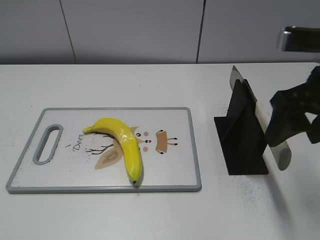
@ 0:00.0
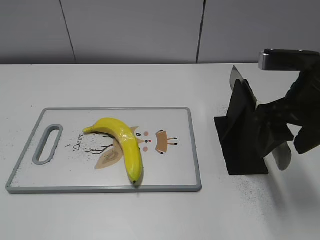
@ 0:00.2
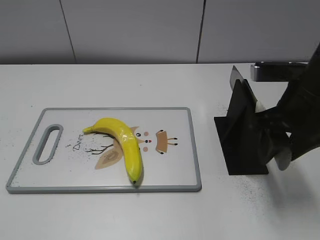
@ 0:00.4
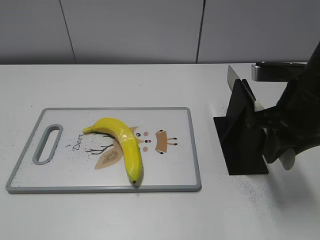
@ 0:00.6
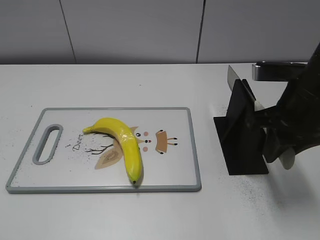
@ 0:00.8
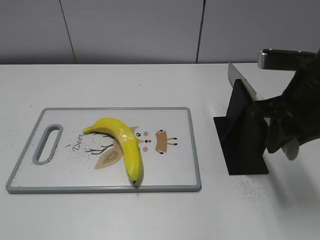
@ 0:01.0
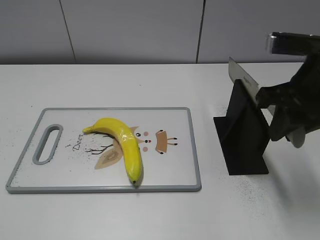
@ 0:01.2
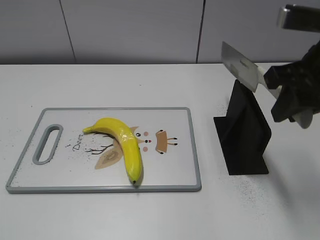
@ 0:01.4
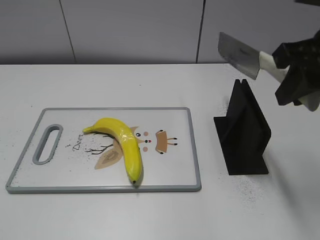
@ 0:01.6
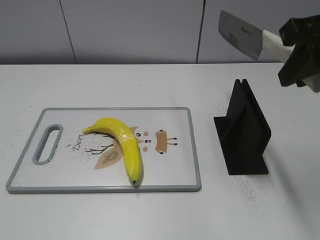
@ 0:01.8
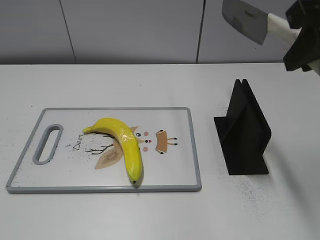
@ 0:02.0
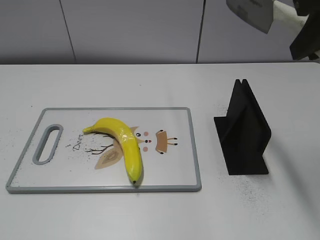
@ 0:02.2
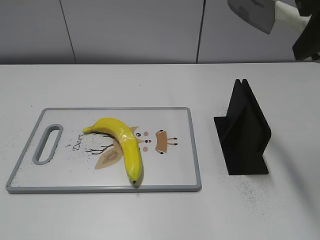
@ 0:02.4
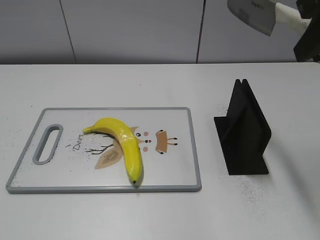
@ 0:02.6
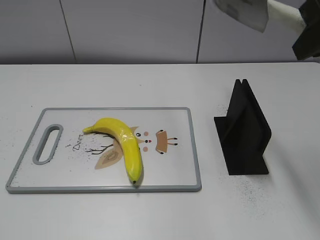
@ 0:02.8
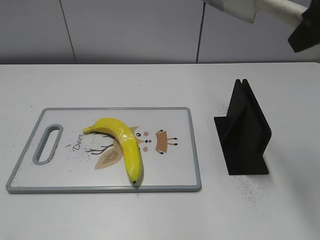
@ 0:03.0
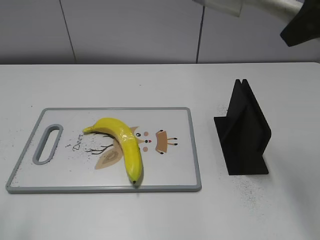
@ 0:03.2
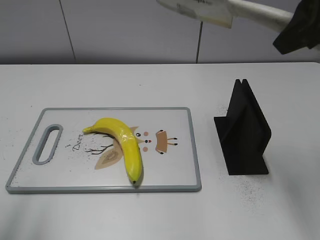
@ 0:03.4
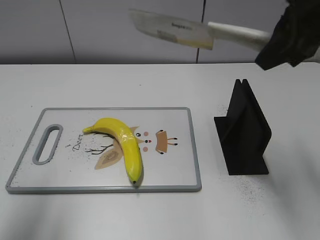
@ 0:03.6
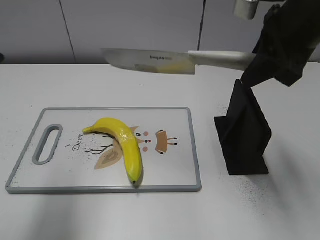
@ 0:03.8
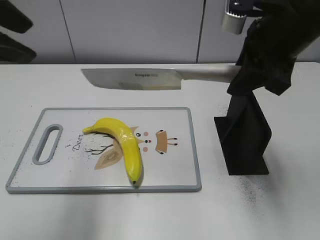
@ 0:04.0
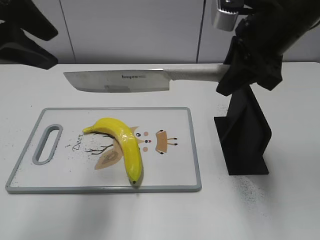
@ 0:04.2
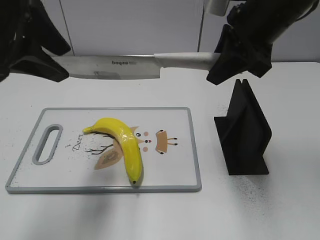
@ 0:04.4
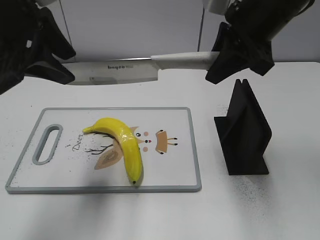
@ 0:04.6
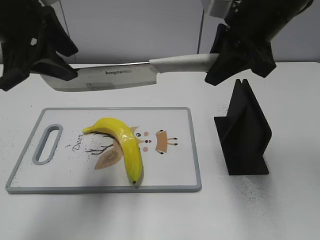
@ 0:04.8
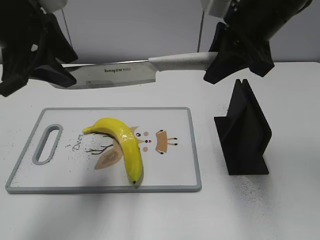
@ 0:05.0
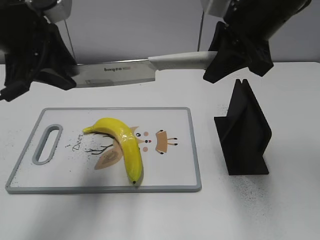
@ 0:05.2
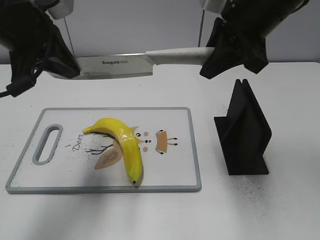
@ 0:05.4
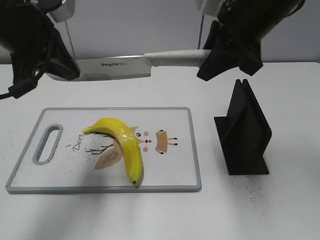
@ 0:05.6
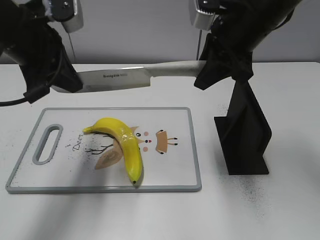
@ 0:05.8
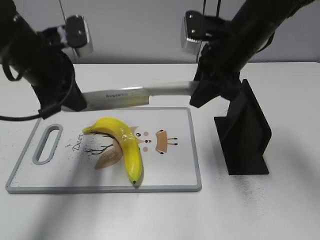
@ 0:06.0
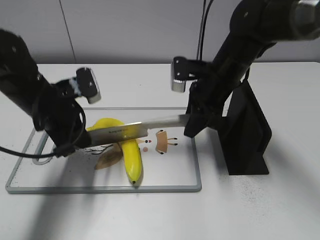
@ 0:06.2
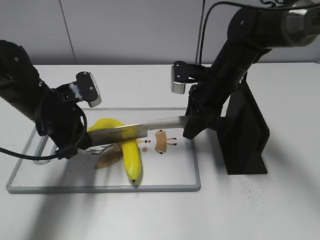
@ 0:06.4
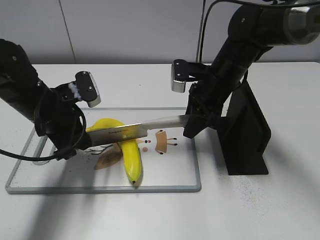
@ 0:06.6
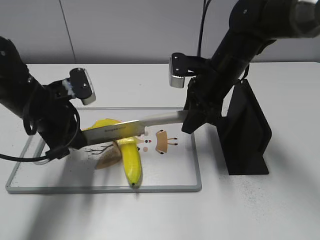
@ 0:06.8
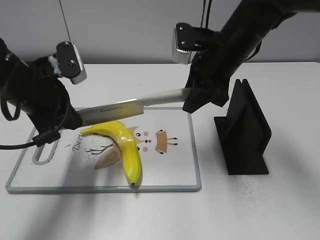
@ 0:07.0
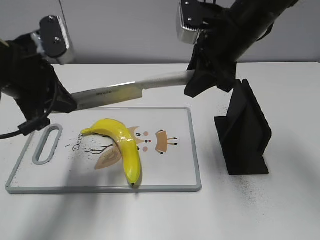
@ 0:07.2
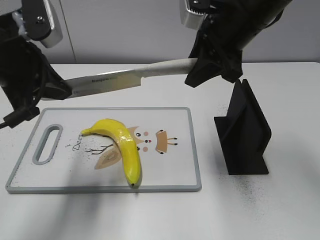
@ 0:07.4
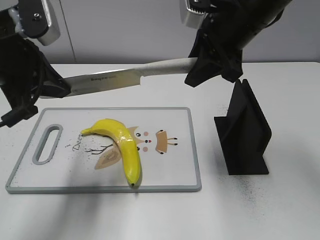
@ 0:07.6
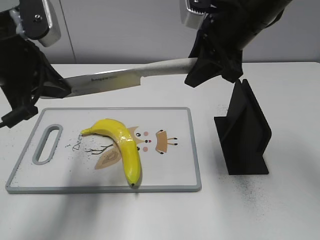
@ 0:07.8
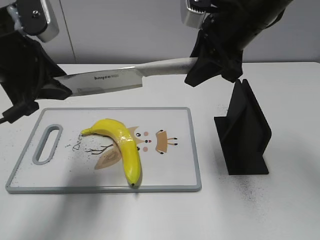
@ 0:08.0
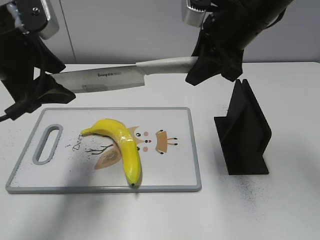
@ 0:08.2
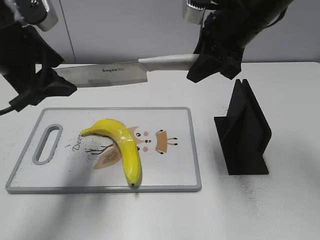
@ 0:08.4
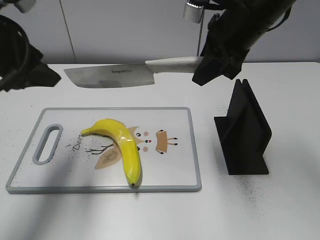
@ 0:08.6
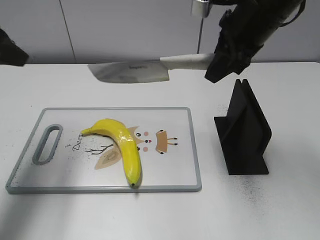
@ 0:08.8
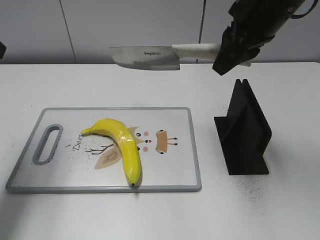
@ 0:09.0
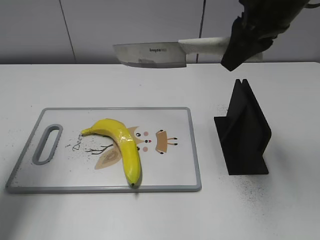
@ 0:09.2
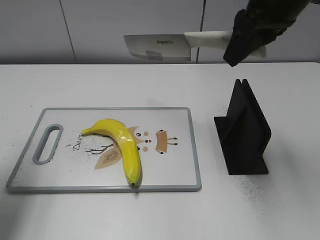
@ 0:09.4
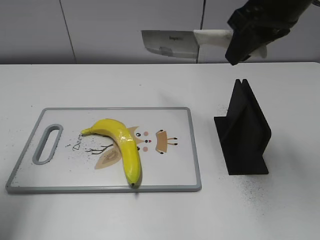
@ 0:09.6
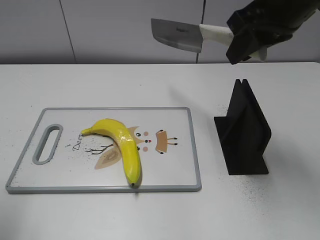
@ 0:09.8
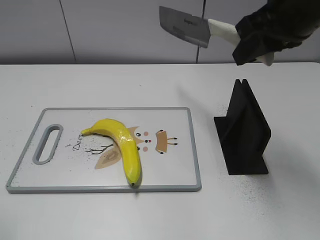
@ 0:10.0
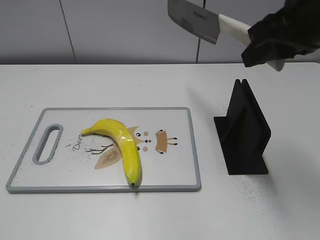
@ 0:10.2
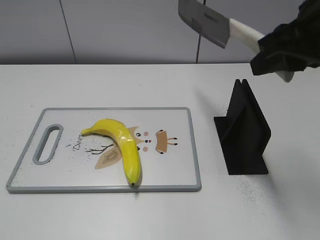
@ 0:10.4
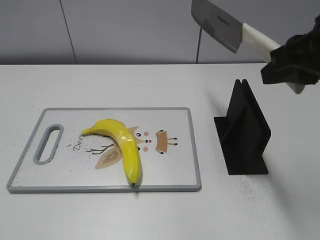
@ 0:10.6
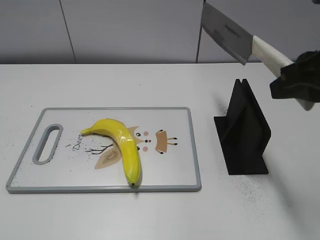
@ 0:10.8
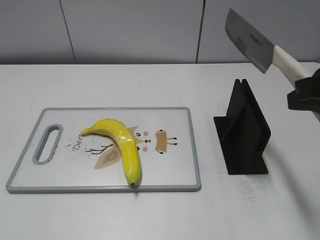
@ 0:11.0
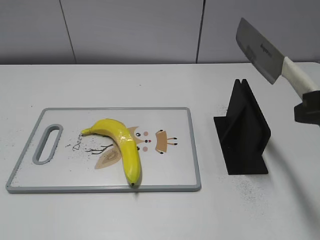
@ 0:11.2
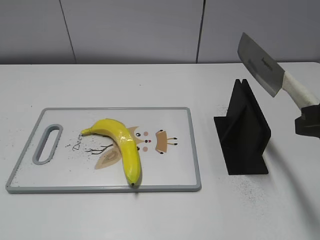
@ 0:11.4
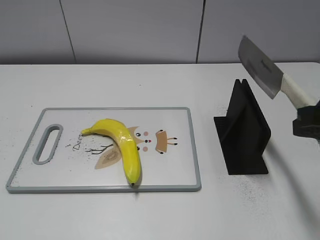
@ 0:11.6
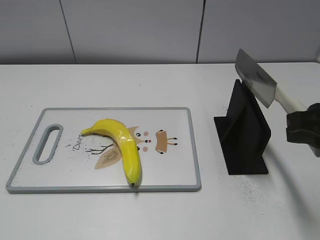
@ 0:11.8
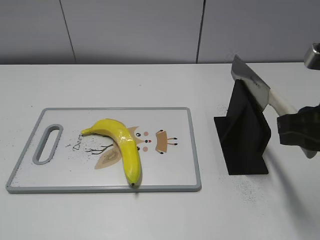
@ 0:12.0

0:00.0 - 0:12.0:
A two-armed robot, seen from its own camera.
Task of the whole recording: cut plastic banana.
Step, 0:01.6 - 0:07.6: Lift the knife with your right hand.
Step, 0:07.8 - 0:09.0: Cut the banana with your right hand.
Step, 0:09.2 - 0:10.2: Secure the blade with your left hand.
0:00.0 - 0:01.6: The right gripper closes its fingers.
0:01.6 - 0:03.0: The right gripper heads upward, covering roughly 5 cm.
0:03.0 - 0:04.4: The right gripper goes about 10 cm forward, downward and to the left, while the left gripper travels forward and to the right by approximately 25 cm.
0:04.4 - 0:06.0: The left gripper heads downward and forward, covering about 10 cm, and closes up, while the right gripper travels downward by some 5 cm.
0:06.0 - 0:07.6: The right gripper reaches about 10 cm downward, then returns; the left gripper is displaced backward by approximately 5 cm, and goes downward and returns, about 10 cm each way.
0:07.6 - 0:09.0: The left gripper heads to the left, covering some 10 cm, and opens.
0:09.0 - 0:10.4: The right gripper travels backward by approximately 10 cm; the left gripper is displaced backward by about 25 cm.
0:10.4 - 0:12.0: The right gripper heads downward and backward, covering some 10 cm.

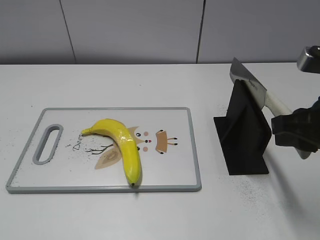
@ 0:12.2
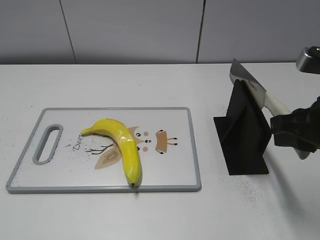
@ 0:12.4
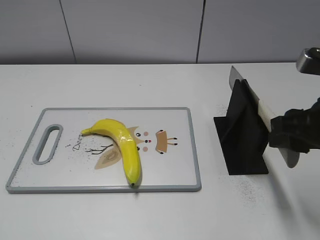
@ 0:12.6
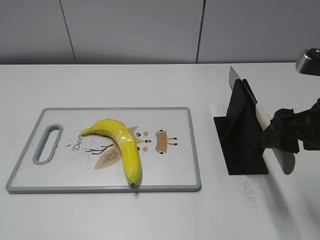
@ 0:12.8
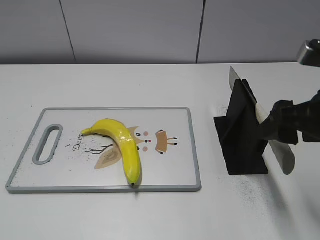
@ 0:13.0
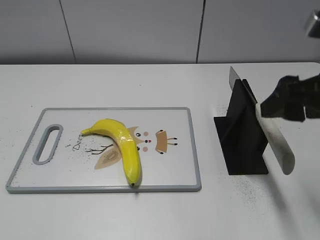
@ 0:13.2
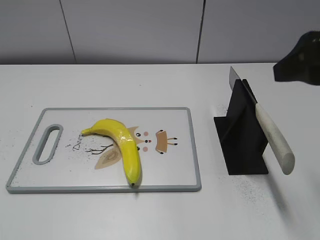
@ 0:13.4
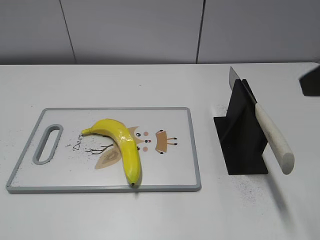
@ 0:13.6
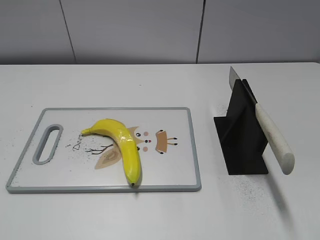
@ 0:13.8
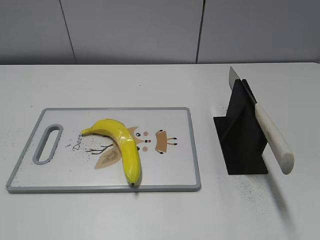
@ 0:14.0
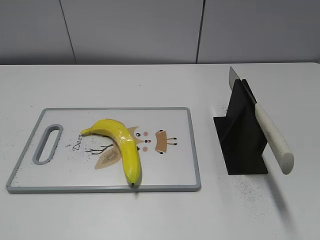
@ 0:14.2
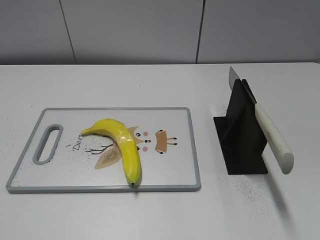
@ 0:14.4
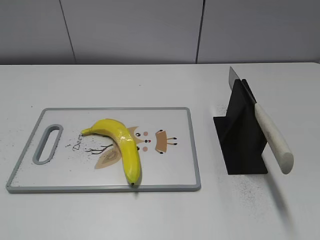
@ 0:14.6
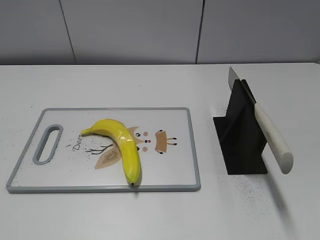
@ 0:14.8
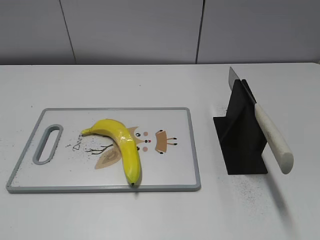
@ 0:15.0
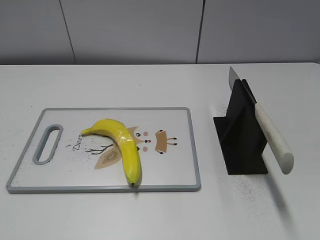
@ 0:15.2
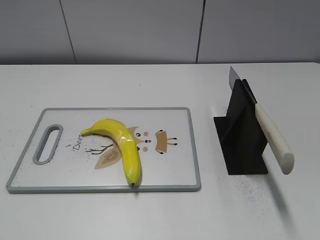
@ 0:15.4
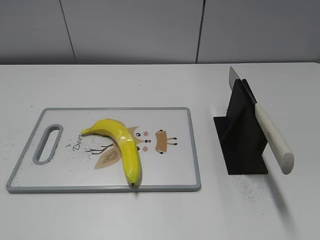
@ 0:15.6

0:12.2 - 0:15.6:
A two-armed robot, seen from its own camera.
Task of the whole recording: cut plastic banana.
Step, 0:12.2 - 0:15.6: Place the knife on the storage rack with your right hand.
0:12.2 - 0:13.8: The right gripper goes approximately 10 cm upward and backward, and opens its fingers.
